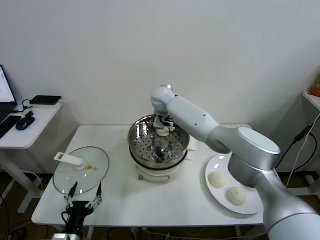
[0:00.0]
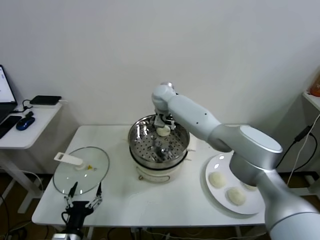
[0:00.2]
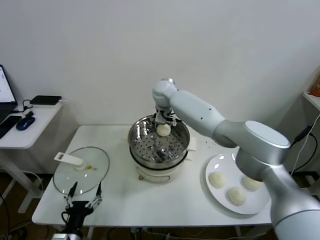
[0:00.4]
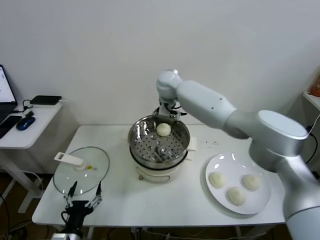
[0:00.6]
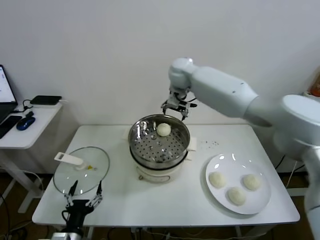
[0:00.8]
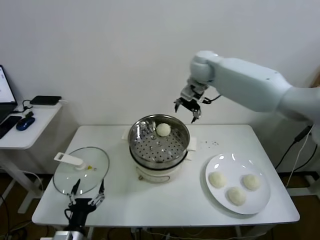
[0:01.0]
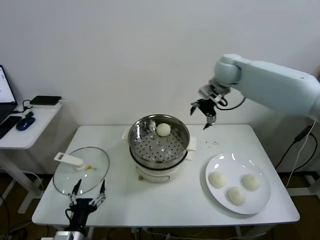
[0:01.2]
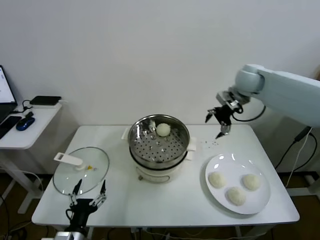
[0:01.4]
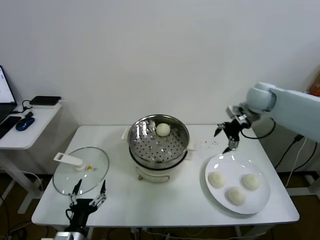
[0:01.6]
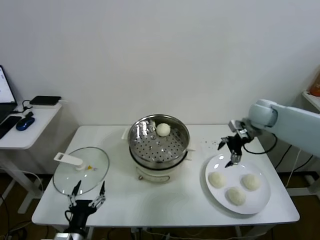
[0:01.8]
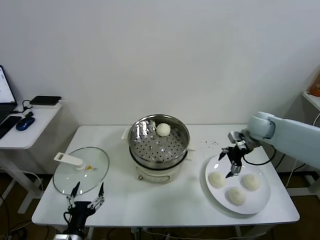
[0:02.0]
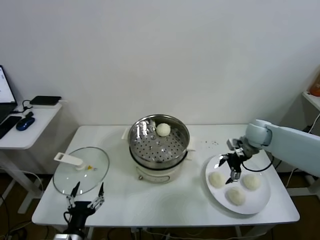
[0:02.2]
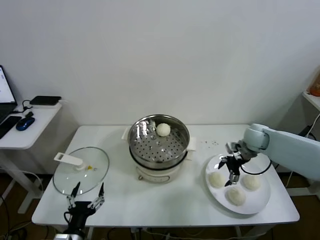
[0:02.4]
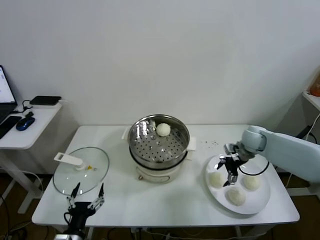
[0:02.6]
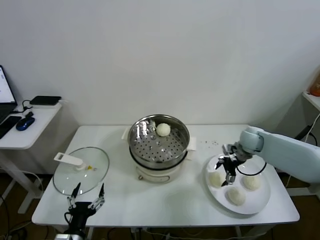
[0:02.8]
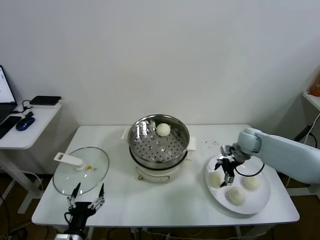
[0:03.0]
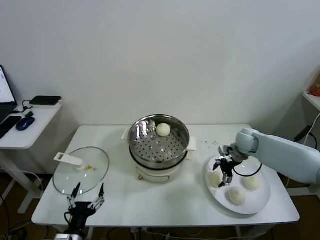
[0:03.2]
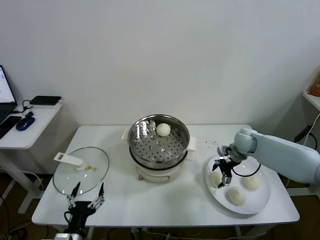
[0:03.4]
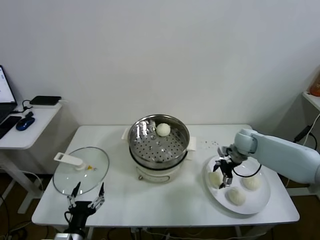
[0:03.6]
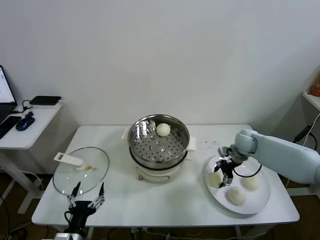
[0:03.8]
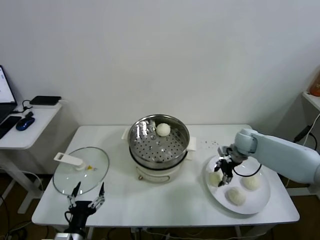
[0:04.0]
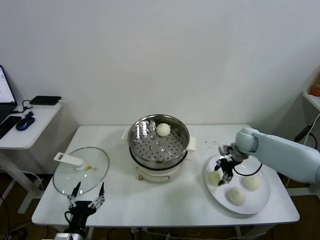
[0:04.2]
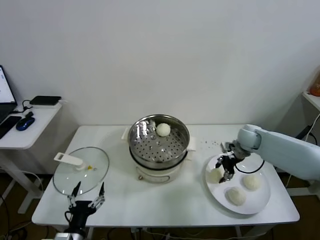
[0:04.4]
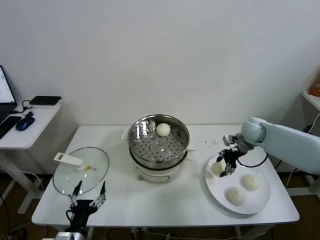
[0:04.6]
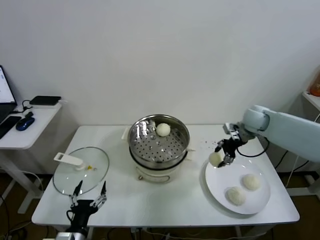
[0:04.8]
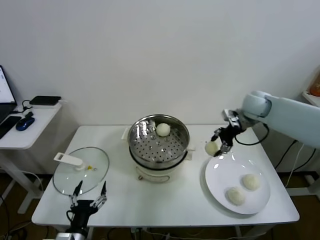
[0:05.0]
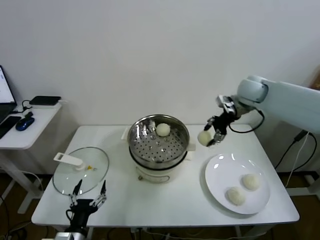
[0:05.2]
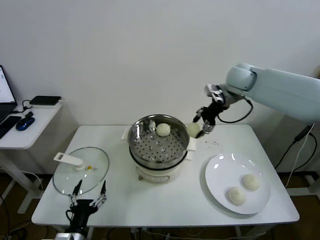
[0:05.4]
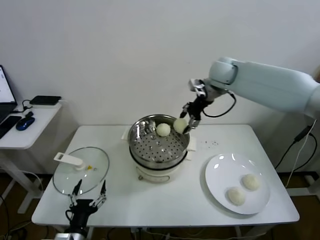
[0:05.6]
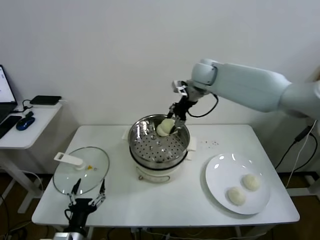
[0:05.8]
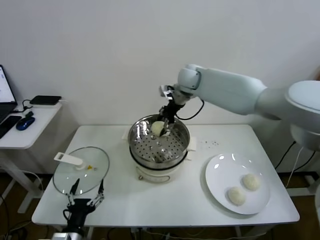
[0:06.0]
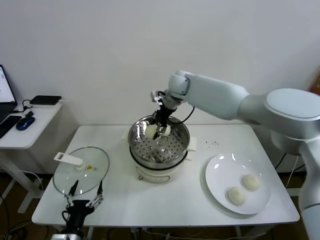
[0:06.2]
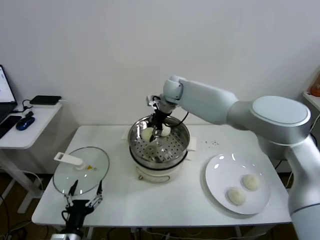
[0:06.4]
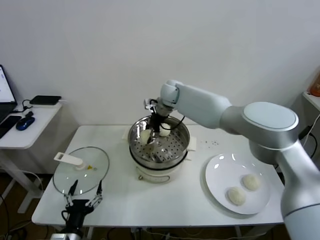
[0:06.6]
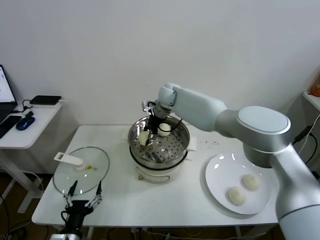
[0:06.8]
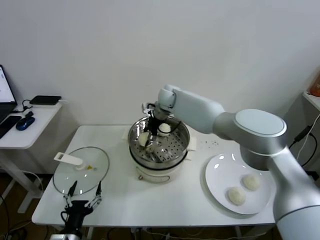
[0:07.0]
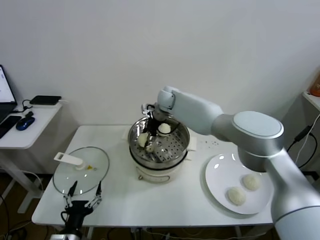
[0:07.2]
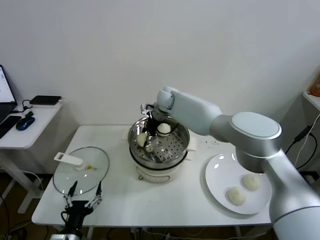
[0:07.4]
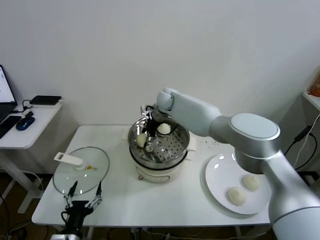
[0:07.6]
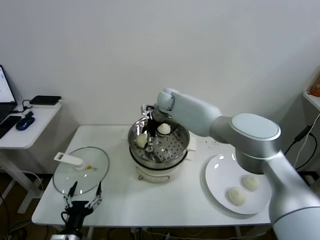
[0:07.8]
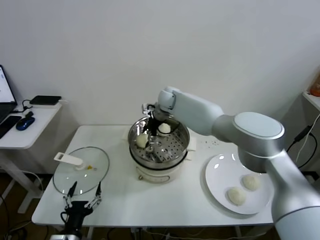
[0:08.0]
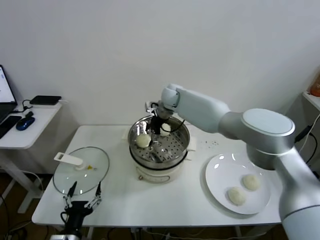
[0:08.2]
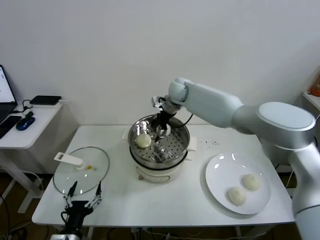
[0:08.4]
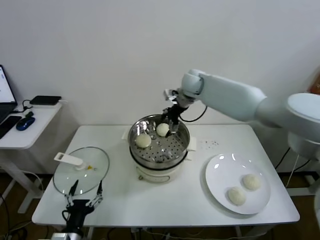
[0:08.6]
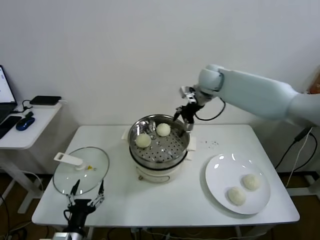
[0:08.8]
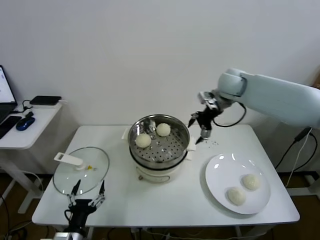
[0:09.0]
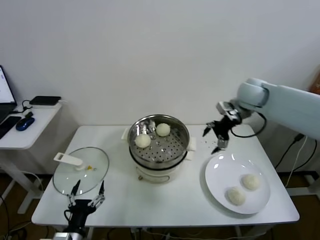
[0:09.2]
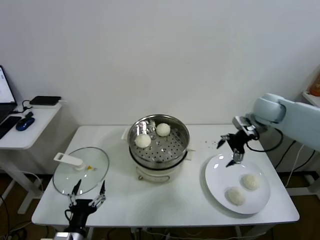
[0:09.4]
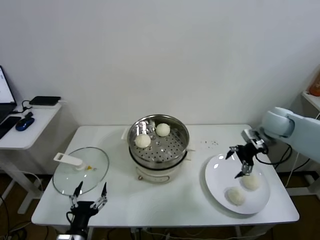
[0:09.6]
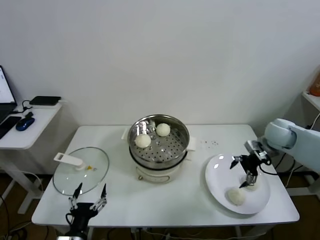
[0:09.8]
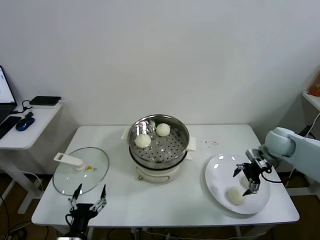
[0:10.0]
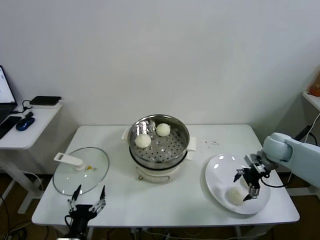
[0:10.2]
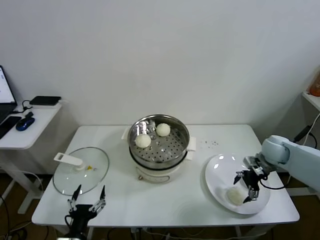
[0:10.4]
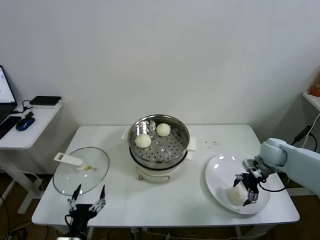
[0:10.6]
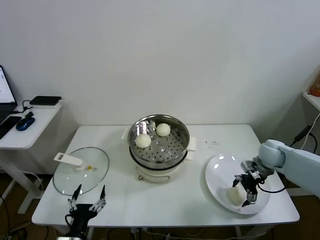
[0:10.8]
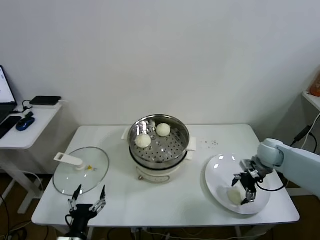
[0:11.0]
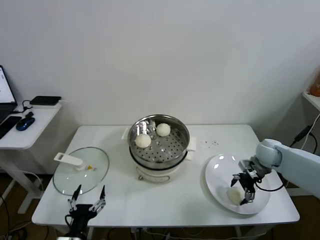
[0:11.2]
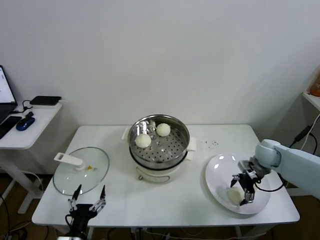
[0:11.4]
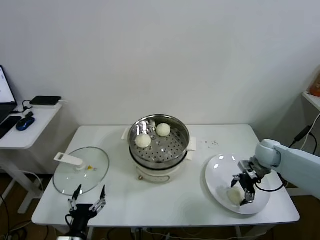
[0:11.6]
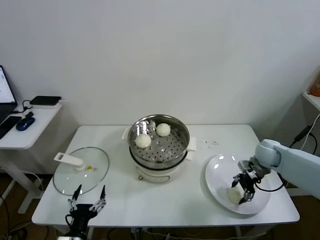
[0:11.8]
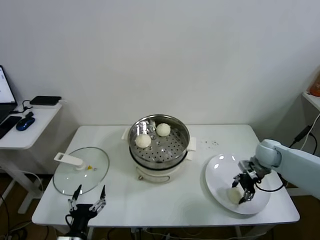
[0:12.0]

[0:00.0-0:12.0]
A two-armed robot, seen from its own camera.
Task of the whole recording: take steamed baozi put them in steamer.
Step, 0:00.4 to 0:04.0: Grasp the baozi in the plate with right gripper.
Step, 0:04.2 to 0:07.8: Place the baozi on the steamer with right gripper.
Step, 0:08.2 to 0:12.0: Grasp the baozi in the plate with right gripper.
0:00.0 to 0:01.6: The right gripper heads to the right, covering roughly 35 cm.
0:01.6 to 0:03.0: The right gripper heads downward, covering approximately 20 cm.
0:03.0 to 0:04.4: The right gripper closes.
0:04.4 to 0:06.0: The right gripper is displaced to the left and upward by about 30 cm.
0:06.0 to 0:07.6: The right gripper moves downward and to the left, roughly 15 cm.
0:07.6 to 0:09.0: The right gripper heads to the right and upward, covering approximately 25 cm, and opens its fingers.
0:09.0 to 0:10.4: The right gripper heads downward, to the right and backward, covering some 30 cm.
0:10.4 to 0:12.0: The right gripper closes.

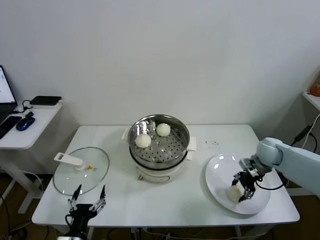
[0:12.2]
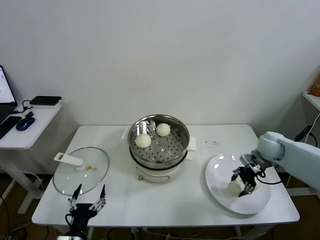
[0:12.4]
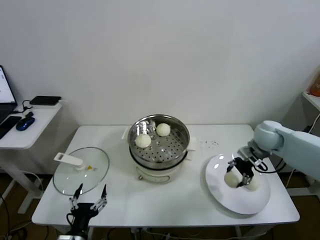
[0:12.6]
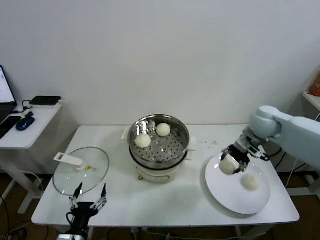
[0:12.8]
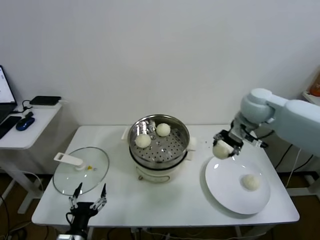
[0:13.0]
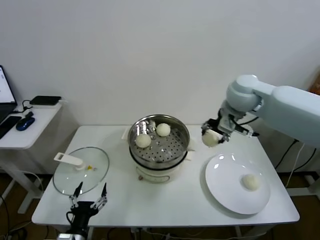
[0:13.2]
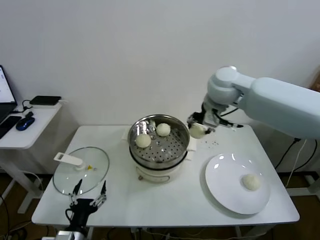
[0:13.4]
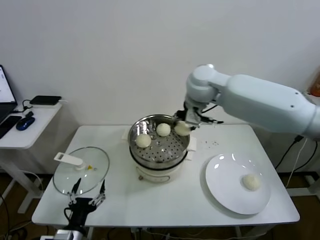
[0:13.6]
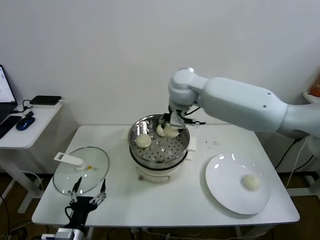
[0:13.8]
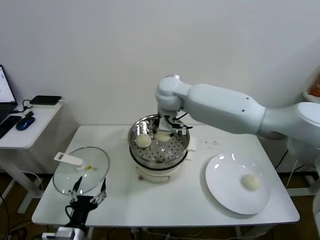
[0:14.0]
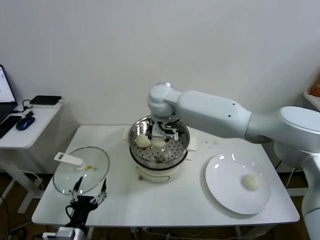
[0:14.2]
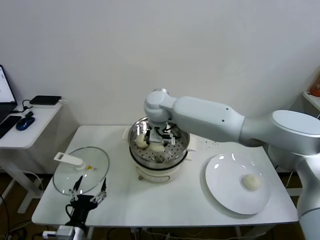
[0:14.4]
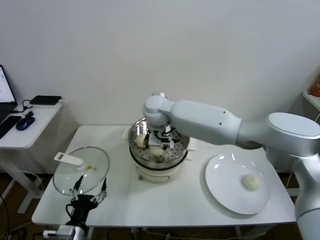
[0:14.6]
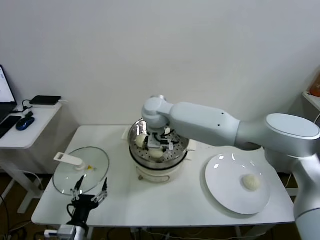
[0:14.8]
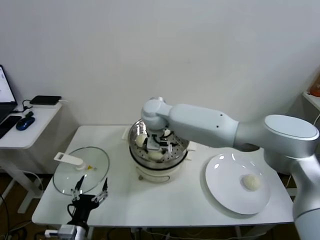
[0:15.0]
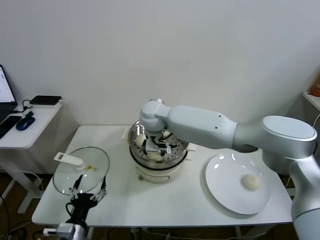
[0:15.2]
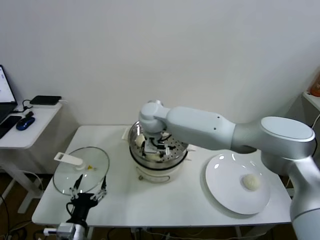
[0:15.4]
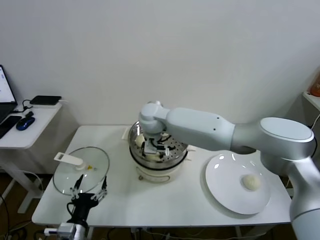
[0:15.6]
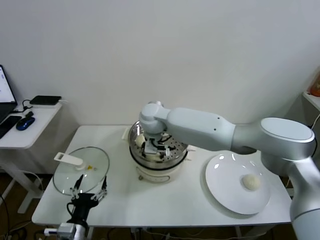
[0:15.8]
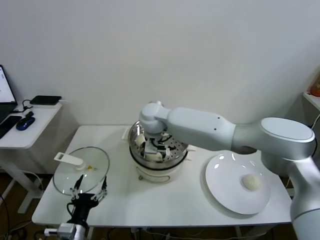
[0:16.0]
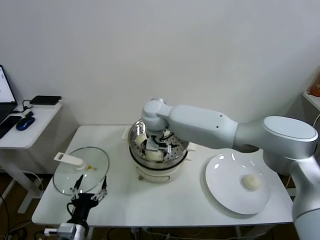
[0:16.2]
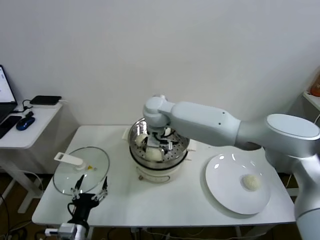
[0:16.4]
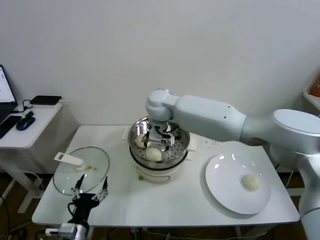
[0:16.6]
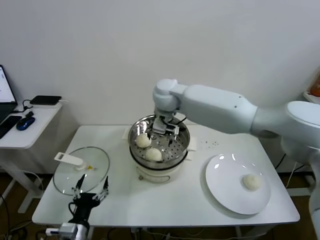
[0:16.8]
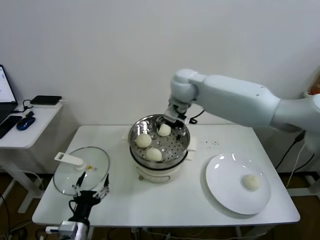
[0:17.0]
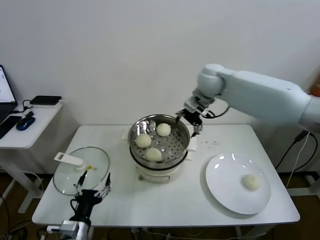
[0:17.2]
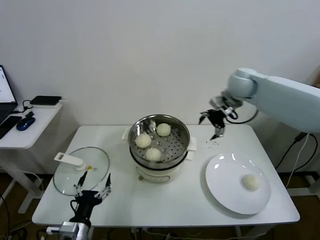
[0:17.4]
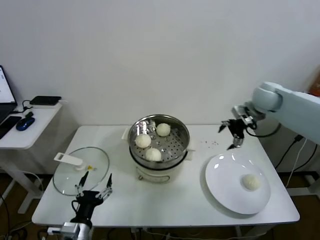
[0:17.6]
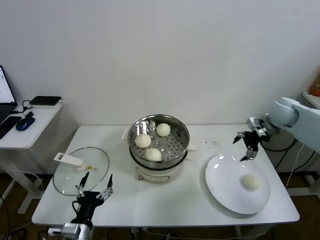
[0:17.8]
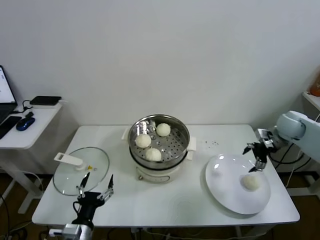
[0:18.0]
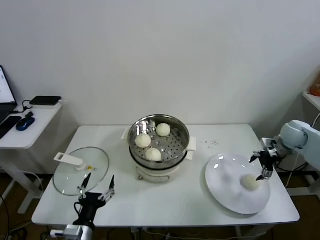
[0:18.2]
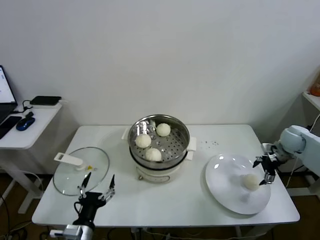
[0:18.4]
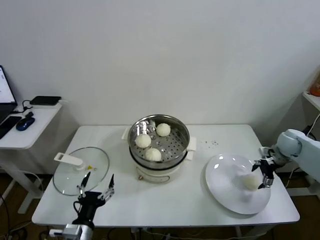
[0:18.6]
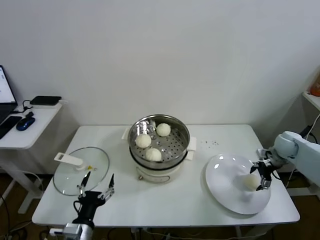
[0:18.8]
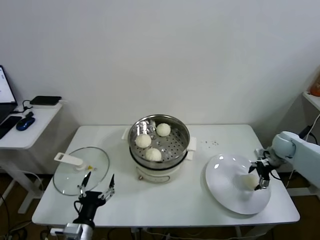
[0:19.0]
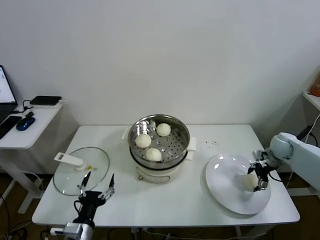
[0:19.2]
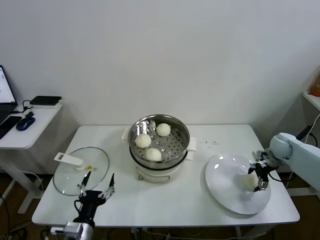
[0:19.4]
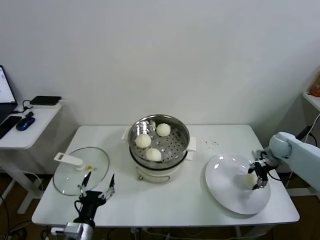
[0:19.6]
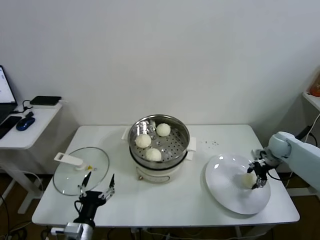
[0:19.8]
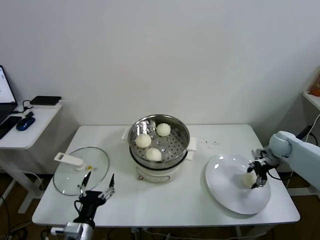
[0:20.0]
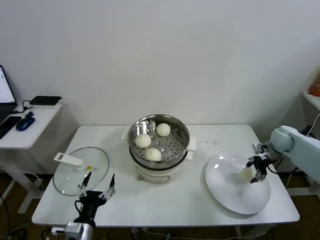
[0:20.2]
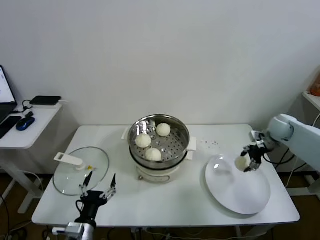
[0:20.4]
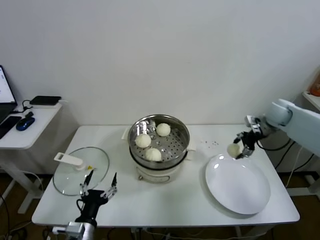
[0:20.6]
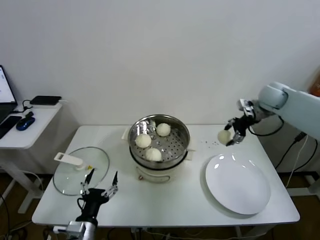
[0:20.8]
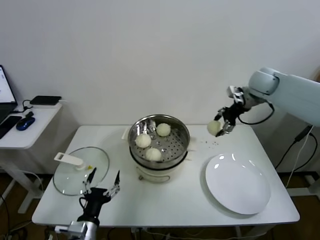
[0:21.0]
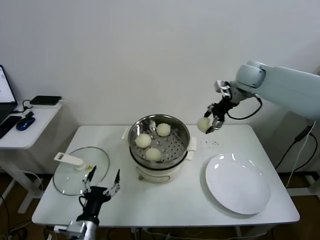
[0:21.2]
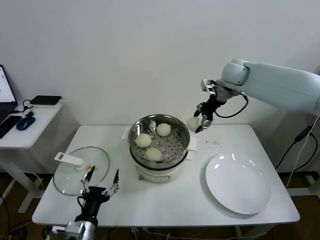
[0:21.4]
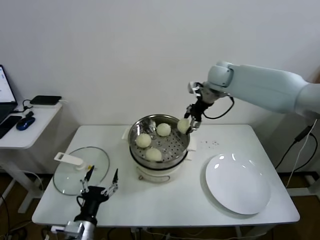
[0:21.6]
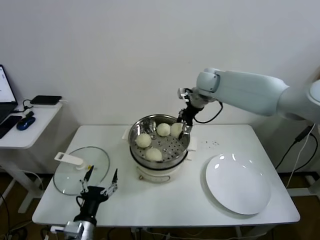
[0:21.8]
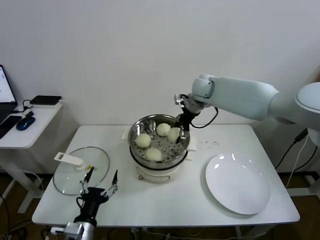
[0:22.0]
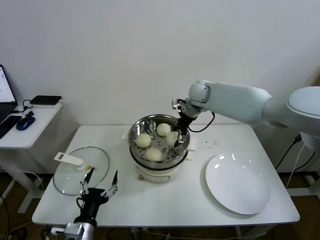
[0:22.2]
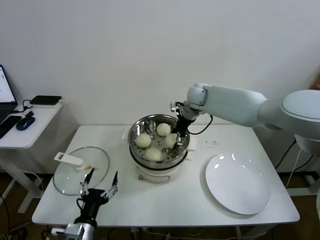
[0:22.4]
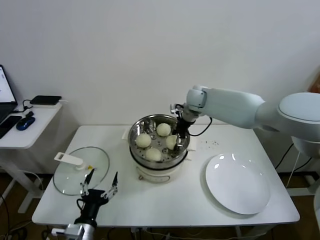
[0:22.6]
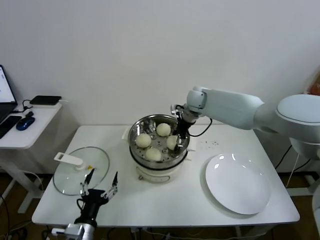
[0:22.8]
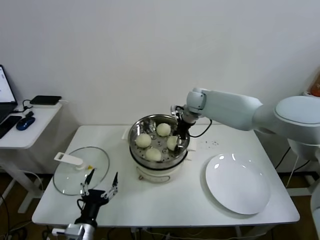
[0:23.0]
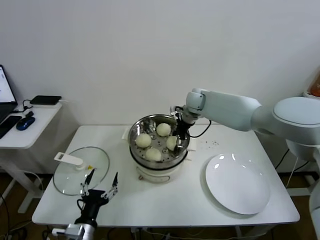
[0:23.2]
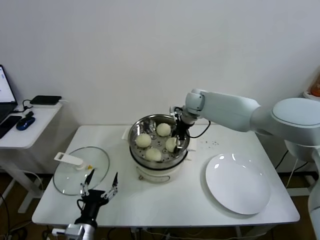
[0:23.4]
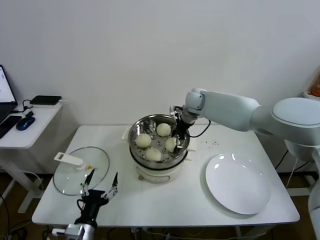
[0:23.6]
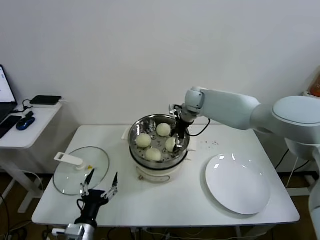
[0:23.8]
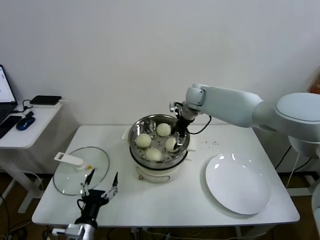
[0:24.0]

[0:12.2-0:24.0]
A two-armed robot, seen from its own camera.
Task of the whole recording: take steamed baozi put them in steamer.
Step, 0:12.2 to 0:16.0: Place the baozi on the steamer with right gripper.
Step, 0:16.2 to 0:19.8: Grasp the baozi in the plate with right gripper.
Step, 0:20.2 to 0:23.6: Place the baozi on the steamer with right gripper.
0:12.2 to 0:13.6: The right gripper heads to the left and upward, covering about 40 cm.
0:13.6 to 0:15.2: The right gripper shifts roughly 20 cm to the left and downward.
0:15.2 to 0:16.6: The right gripper opens.
0:16.6 to 0:18.2: The right gripper is displaced to the right by approximately 50 cm.
0:18.2 to 0:19.6: The right gripper goes approximately 10 cm downward, and closes.
0:19.6 to 0:21.0: The right gripper travels upward and to the left by approximately 25 cm.
0:21.0 to 0:22.6: The right gripper shifts about 20 cm to the left.
0:22.6 to 0:24.0: The right gripper opens up.
